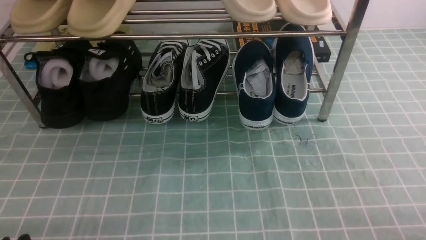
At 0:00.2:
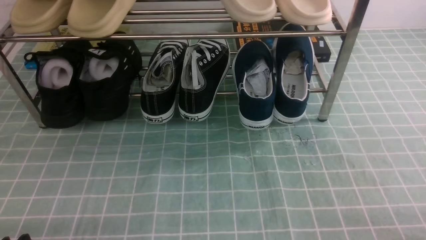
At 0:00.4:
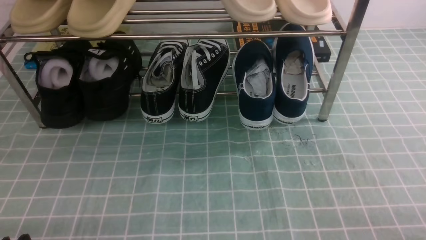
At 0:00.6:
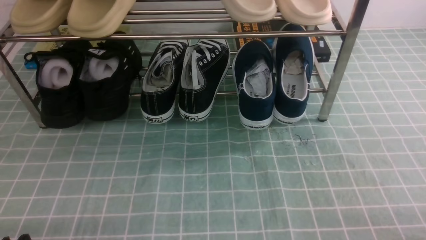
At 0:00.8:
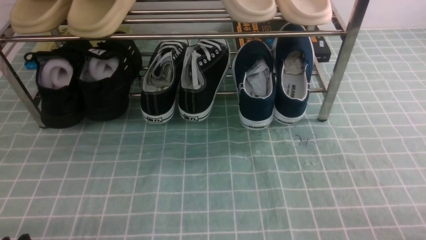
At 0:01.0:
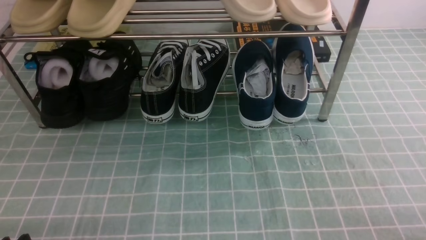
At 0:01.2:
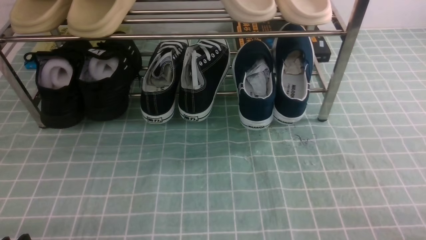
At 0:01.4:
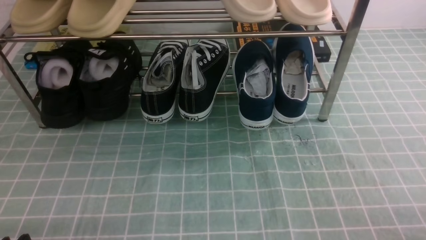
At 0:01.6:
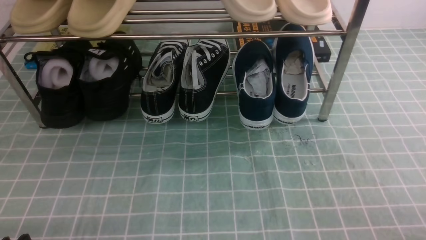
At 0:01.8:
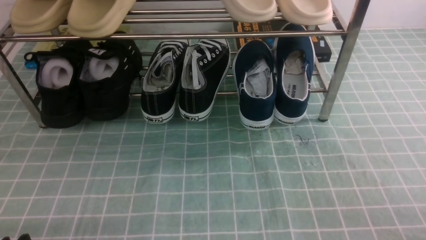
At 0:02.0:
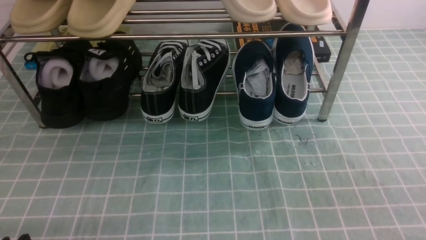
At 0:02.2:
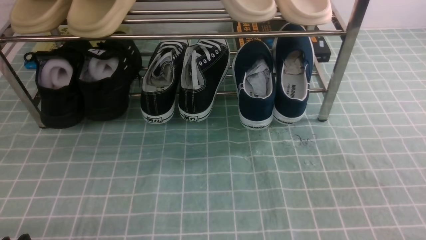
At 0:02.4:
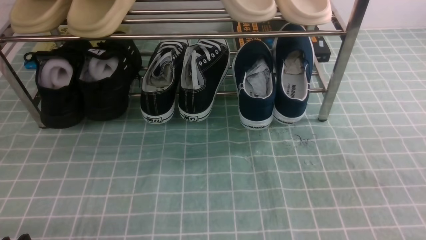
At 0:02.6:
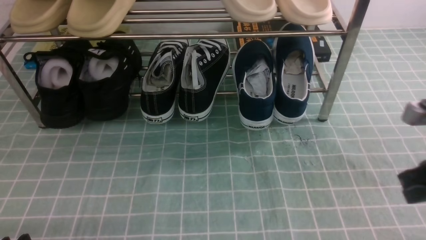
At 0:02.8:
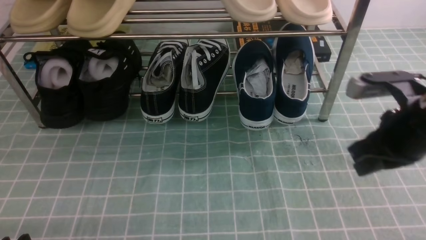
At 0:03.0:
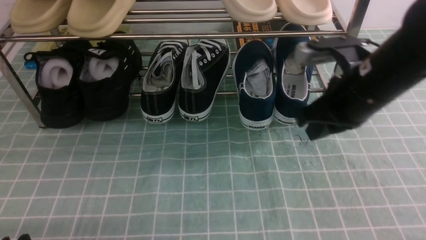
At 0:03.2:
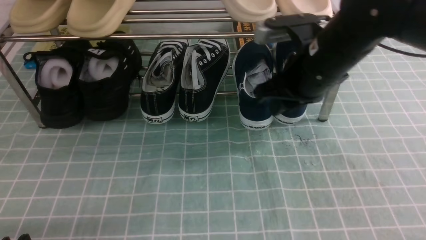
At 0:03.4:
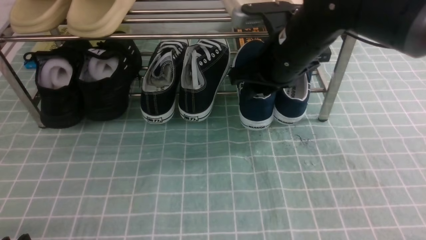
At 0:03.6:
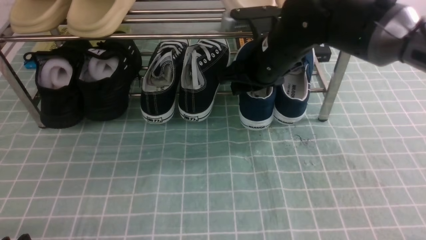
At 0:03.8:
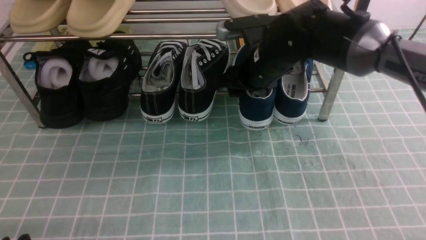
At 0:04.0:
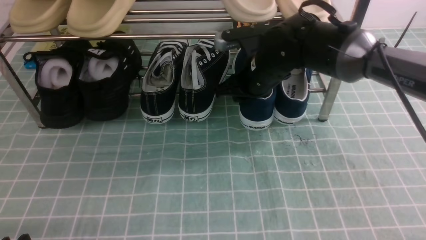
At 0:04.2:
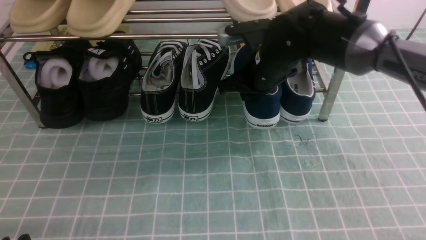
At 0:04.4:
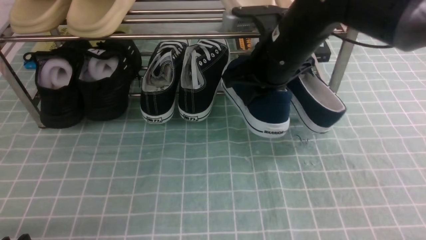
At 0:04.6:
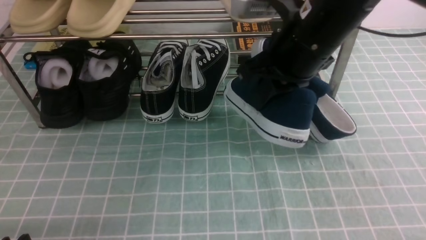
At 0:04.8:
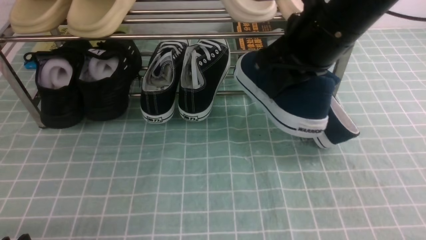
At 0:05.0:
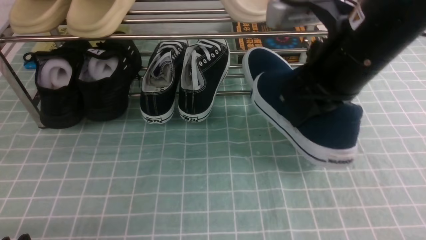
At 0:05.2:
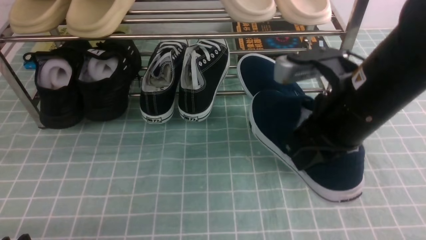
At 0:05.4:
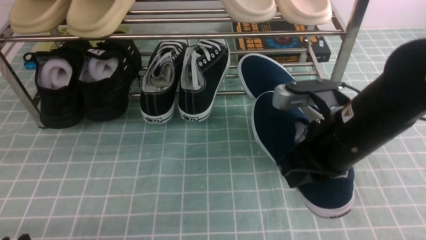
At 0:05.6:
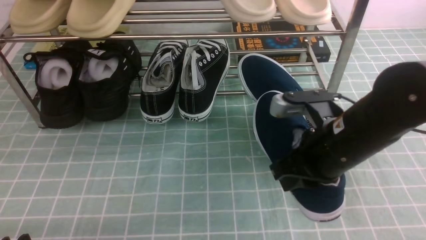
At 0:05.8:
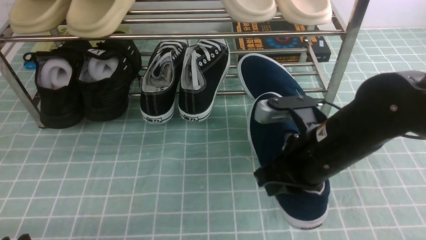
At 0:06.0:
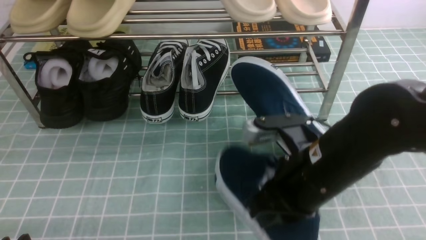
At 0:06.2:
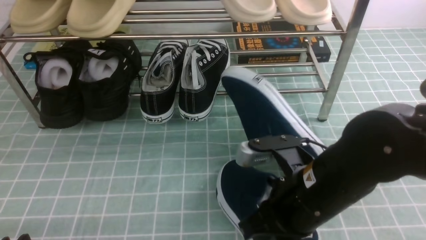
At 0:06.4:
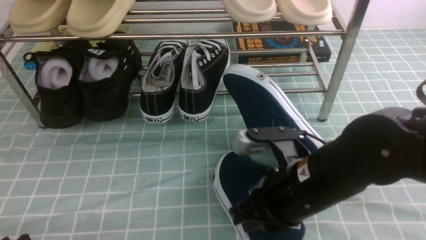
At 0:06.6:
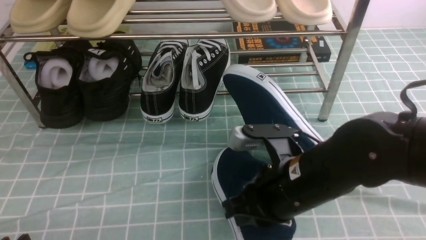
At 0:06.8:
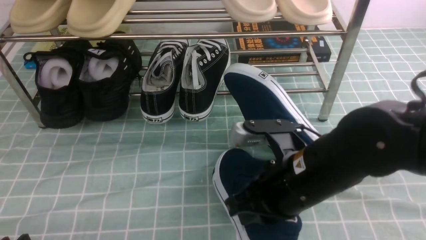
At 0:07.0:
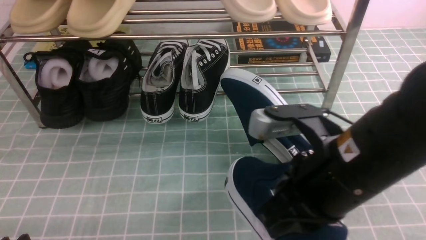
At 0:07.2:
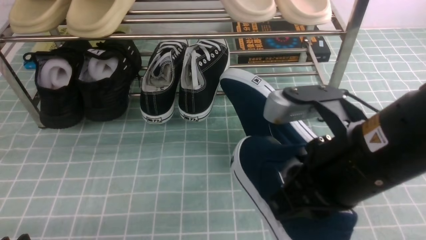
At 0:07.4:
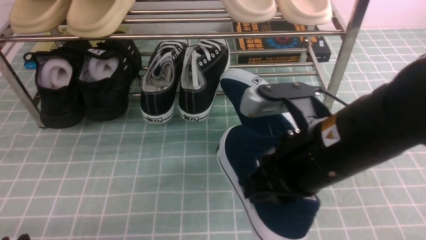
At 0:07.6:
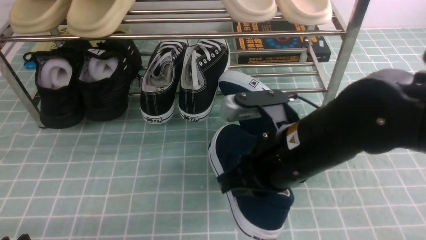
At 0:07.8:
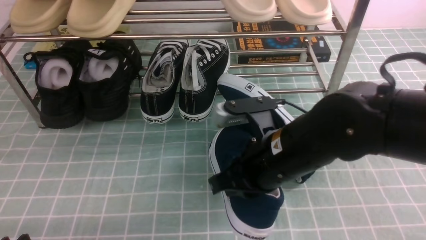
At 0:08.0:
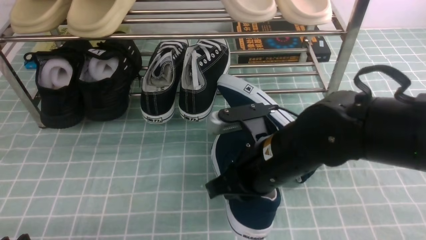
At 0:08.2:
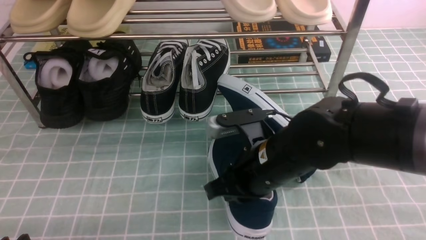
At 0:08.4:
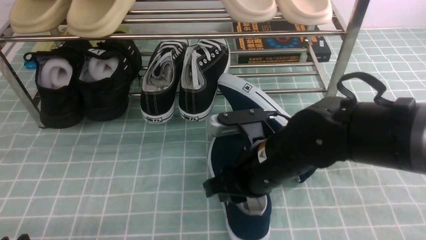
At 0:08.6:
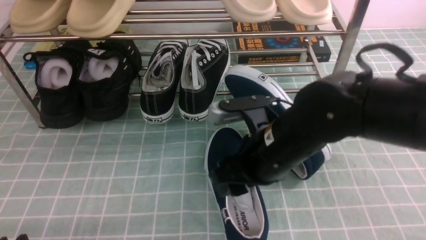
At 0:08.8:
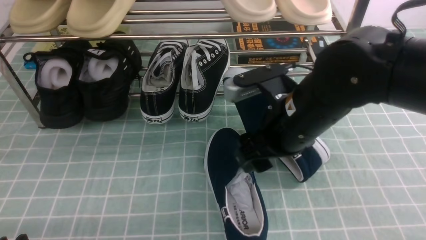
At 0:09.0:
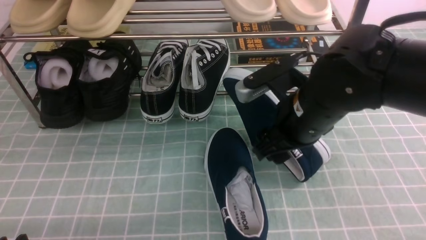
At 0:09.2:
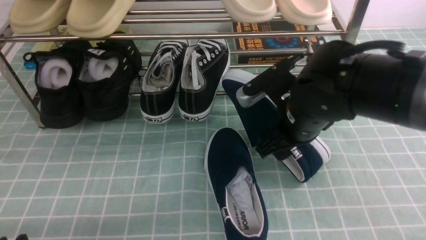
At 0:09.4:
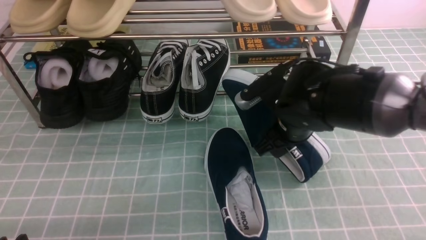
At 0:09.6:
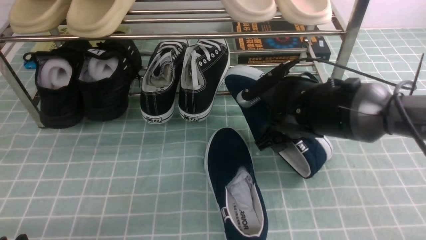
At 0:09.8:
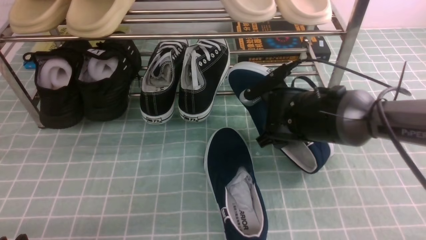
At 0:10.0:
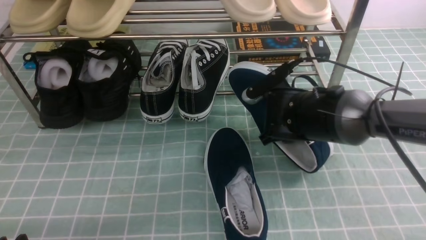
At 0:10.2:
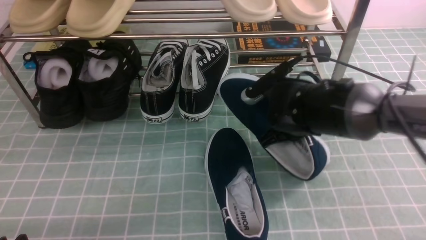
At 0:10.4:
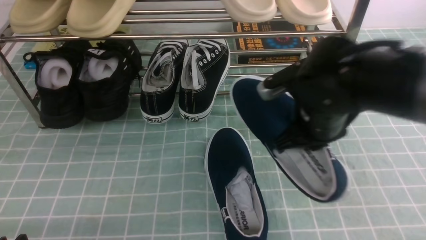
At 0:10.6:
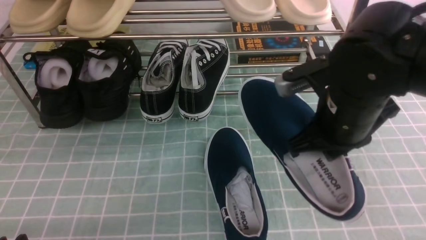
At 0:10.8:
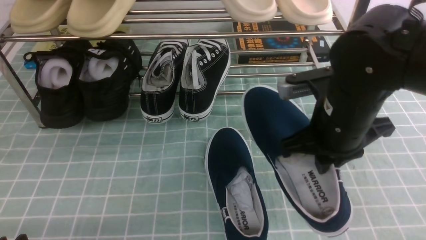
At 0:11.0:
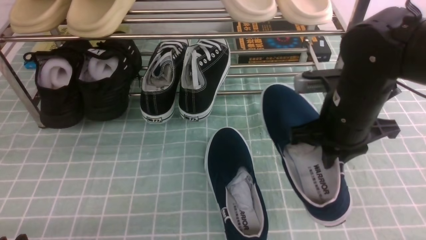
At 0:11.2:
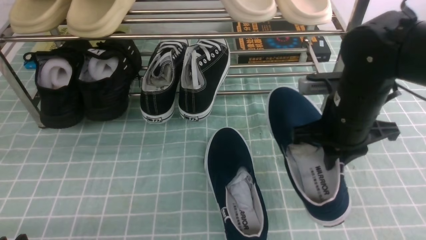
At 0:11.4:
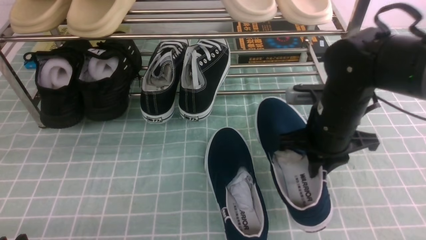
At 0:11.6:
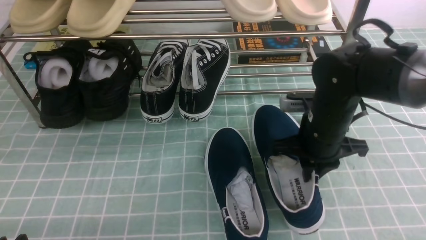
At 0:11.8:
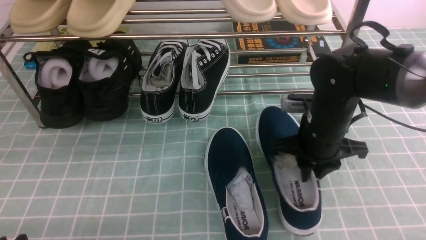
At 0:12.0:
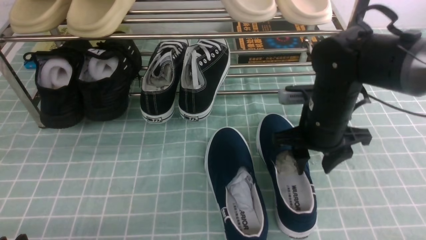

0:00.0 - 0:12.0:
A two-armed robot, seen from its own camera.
Step, 0:00.0 - 0:03.8: use the right arm to clamp a shoe on the right side of the shoe rack.
Step, 0:04.0 - 0:08.6: use the right arm to take out the clamped shoe from the shoe rack and put it down.
Step, 0:08.8 - 0:09.4: use the right arm to clamp a shoe on the right side of the shoe rack.
0:01.6 - 0:03.0: The right gripper goes approximately 30 cm forward, to the left and upward.
0:03.0 - 0:04.4: The right gripper goes approximately 10 cm to the left and forward, and opens and closes again.
0:04.4 - 0:06.0: The right gripper heads backward and downward, covering approximately 15 cm.
0:06.0 - 0:07.6: The right gripper goes upward and returns, some 5 cm each way.
0:07.6 - 0:09.0: The right gripper travels forward by roughly 5 cm, and opens its fingers.
0:09.0 - 0:10.4: The right gripper moves approximately 10 cm downward and comes back, and closes its fingers.
0:10.4 - 0:12.0: The right gripper opens.

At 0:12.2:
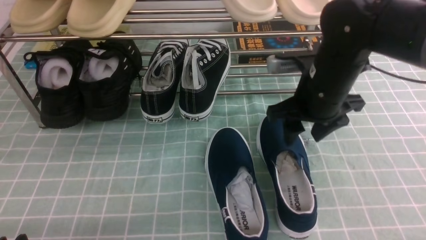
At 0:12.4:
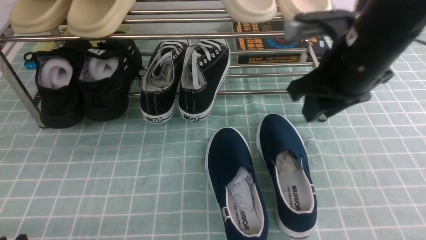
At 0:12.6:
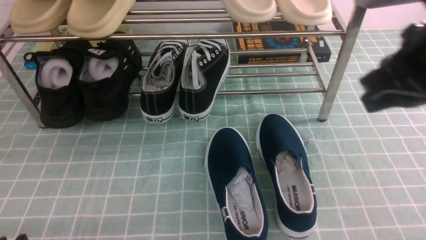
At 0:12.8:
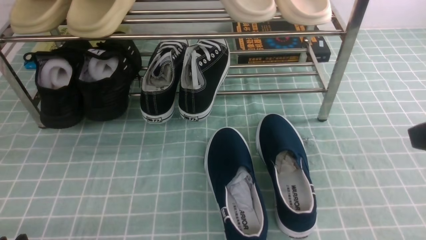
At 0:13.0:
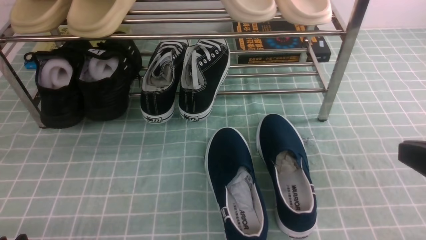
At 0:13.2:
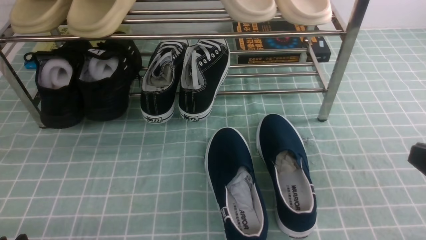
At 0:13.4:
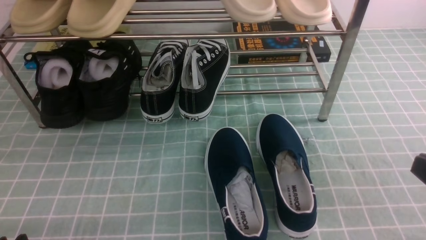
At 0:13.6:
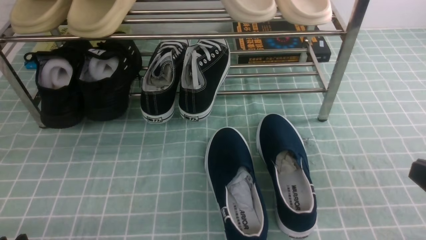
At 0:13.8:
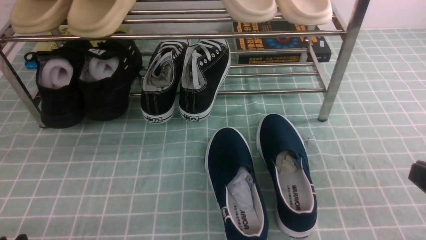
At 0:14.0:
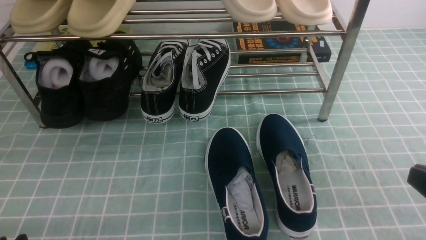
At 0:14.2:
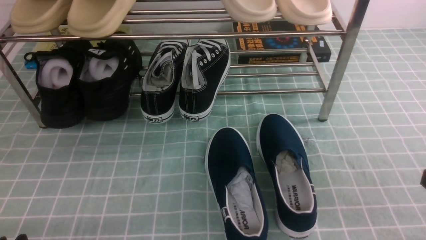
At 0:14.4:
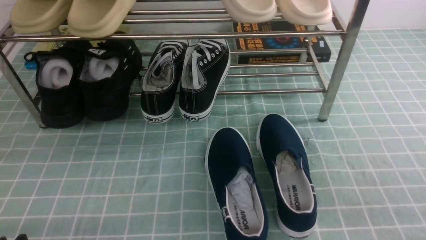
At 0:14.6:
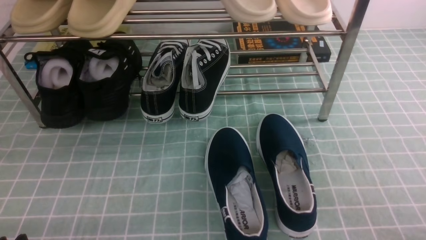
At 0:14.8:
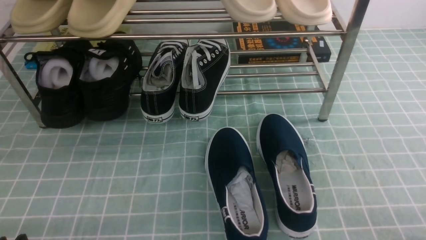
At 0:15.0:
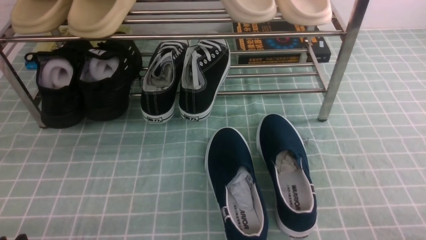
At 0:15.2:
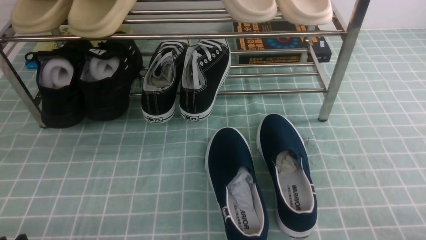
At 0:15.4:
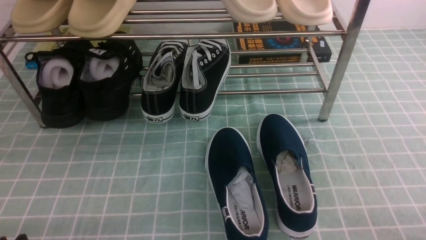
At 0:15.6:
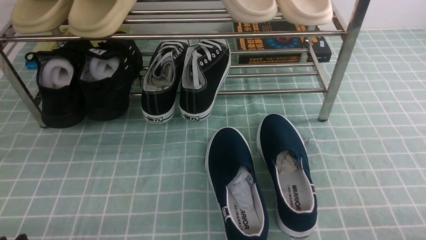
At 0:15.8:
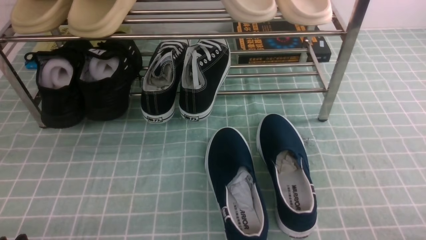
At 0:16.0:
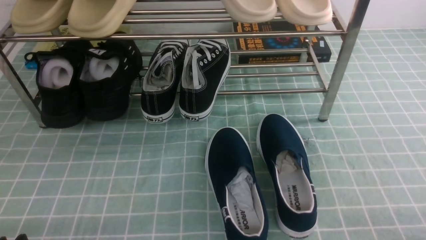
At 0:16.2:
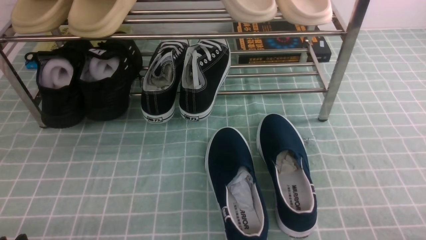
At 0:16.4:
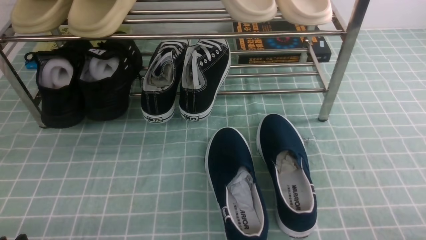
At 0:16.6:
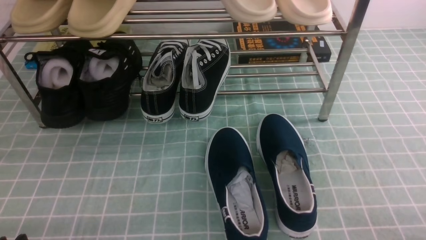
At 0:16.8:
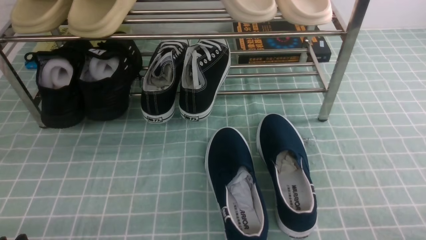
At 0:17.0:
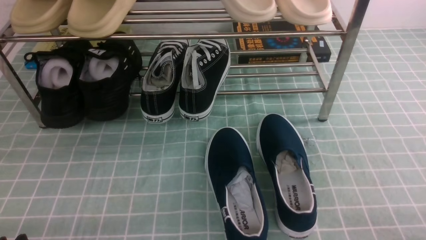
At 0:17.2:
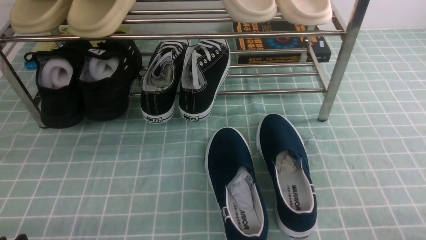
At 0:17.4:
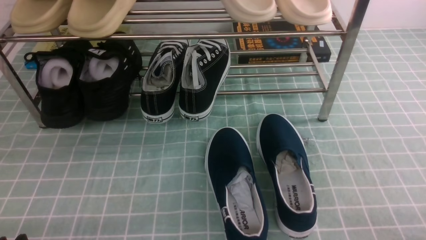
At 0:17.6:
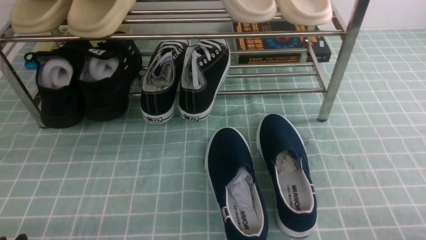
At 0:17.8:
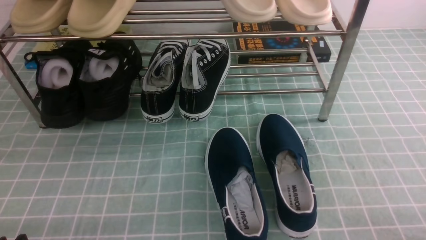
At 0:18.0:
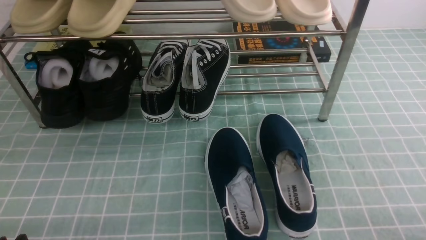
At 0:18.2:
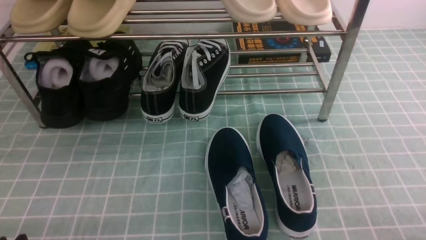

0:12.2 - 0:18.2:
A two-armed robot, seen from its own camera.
0:12.2 - 0:13.8: The right gripper goes approximately 25 cm backward and to the right, and closes its fingers.
0:16.6 - 0:18.2: Both grippers stay put.
